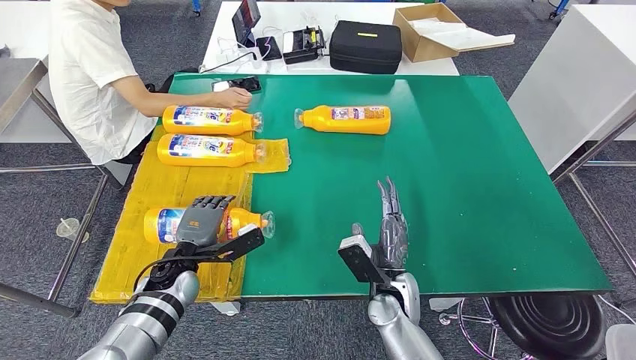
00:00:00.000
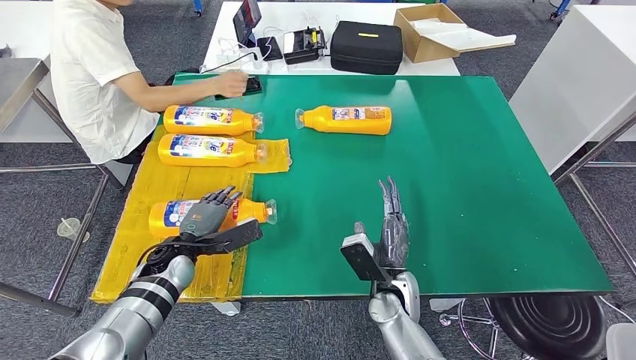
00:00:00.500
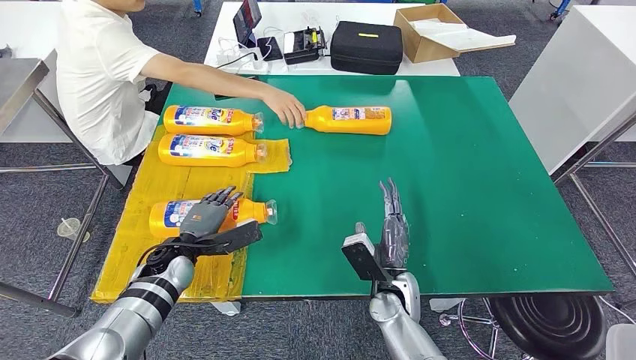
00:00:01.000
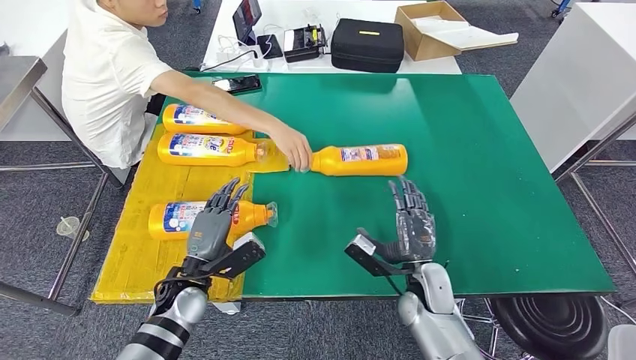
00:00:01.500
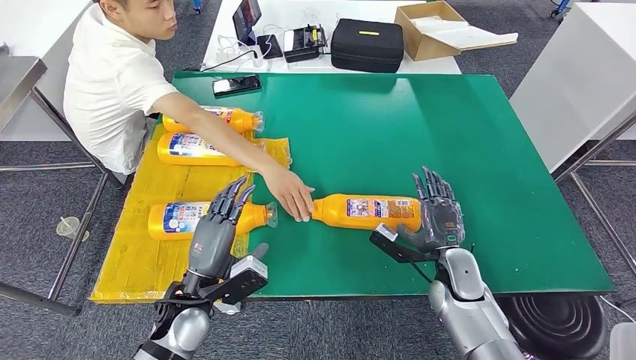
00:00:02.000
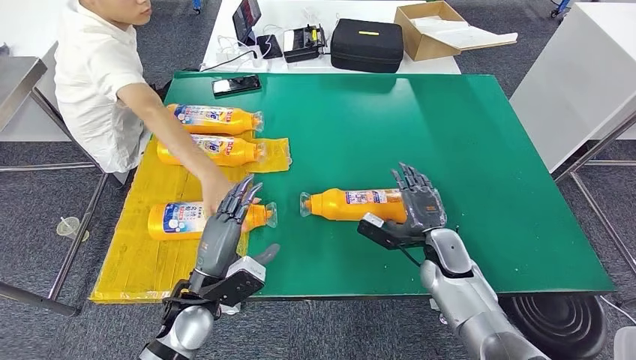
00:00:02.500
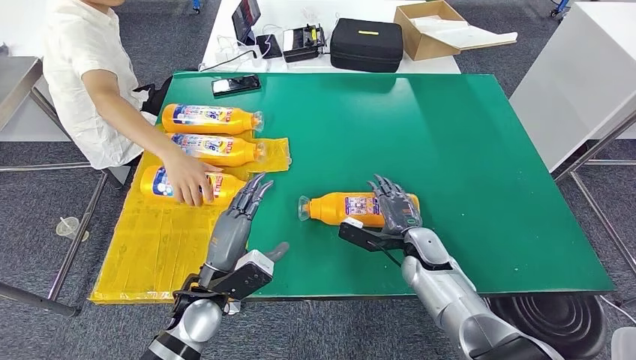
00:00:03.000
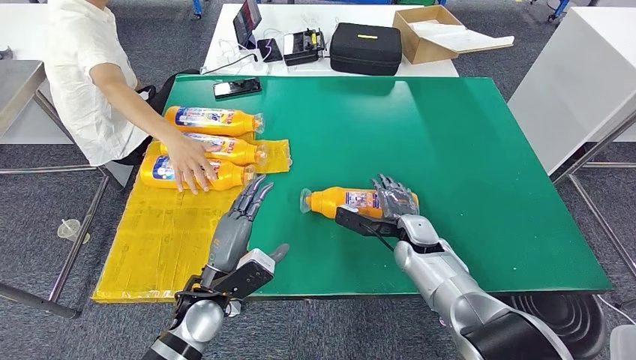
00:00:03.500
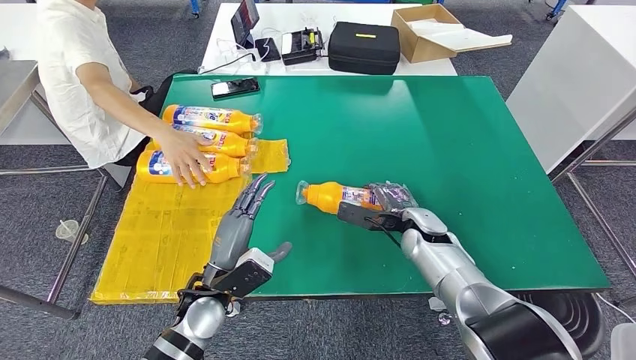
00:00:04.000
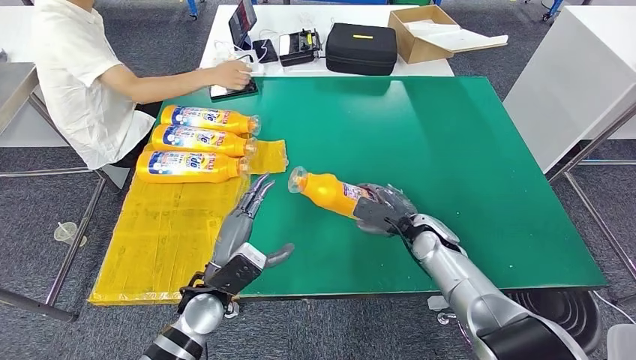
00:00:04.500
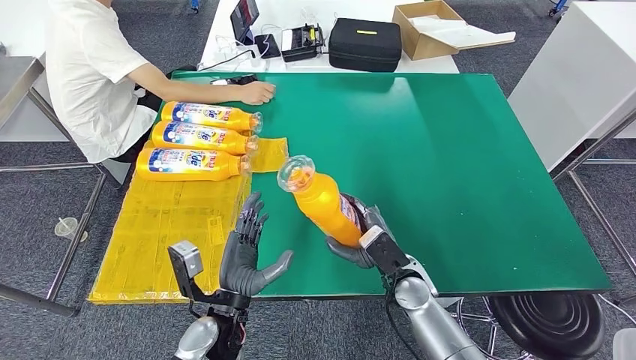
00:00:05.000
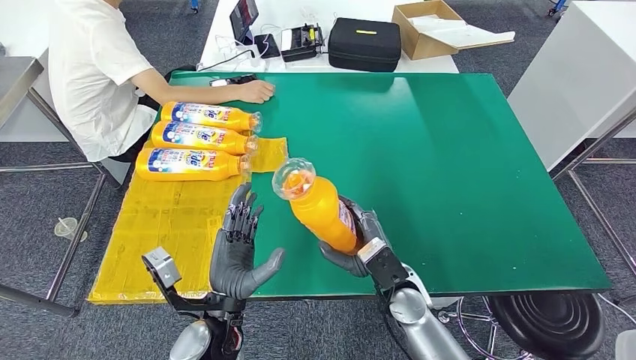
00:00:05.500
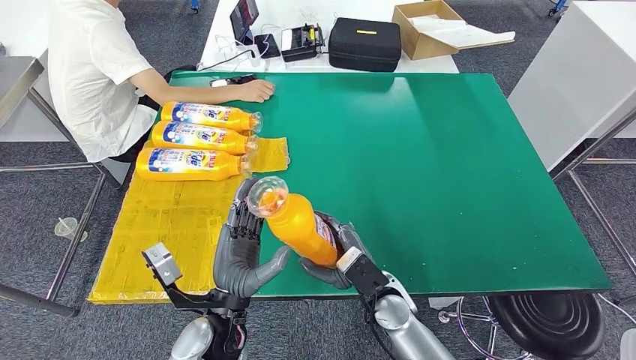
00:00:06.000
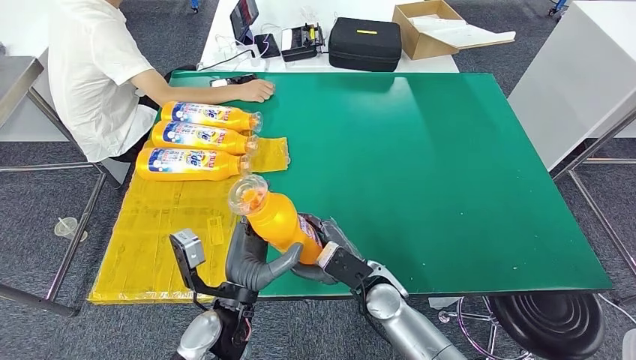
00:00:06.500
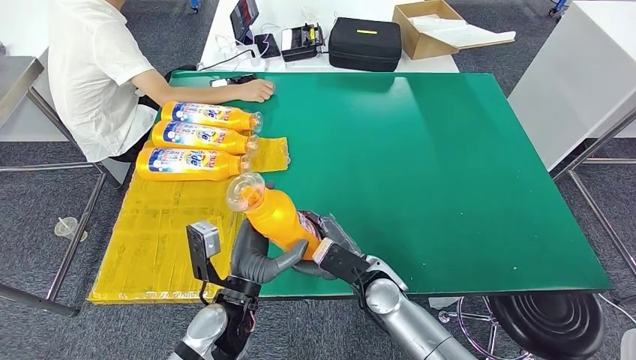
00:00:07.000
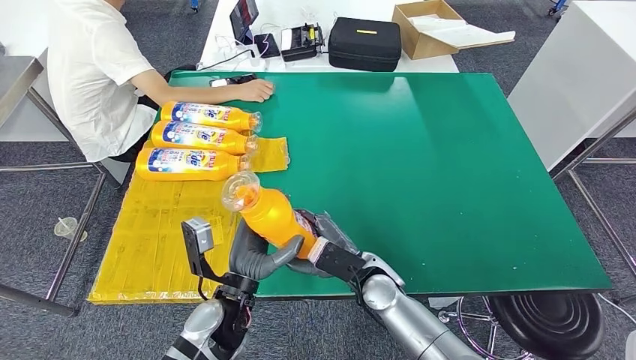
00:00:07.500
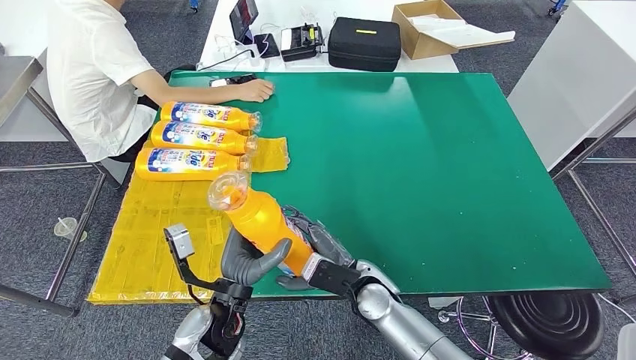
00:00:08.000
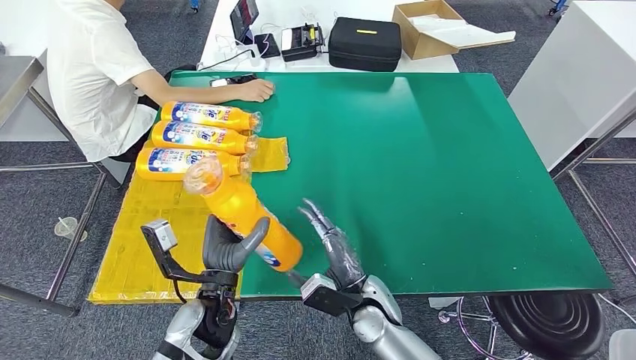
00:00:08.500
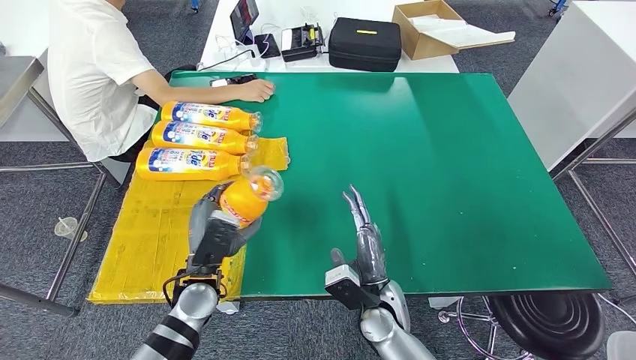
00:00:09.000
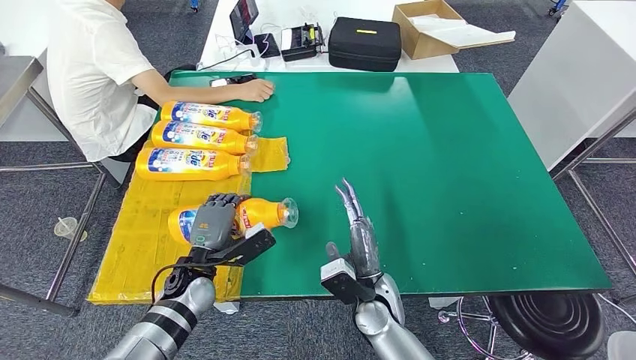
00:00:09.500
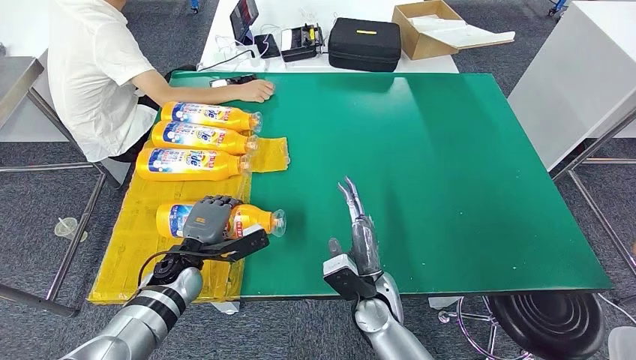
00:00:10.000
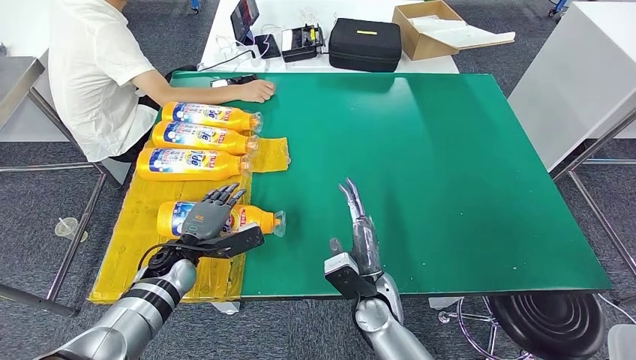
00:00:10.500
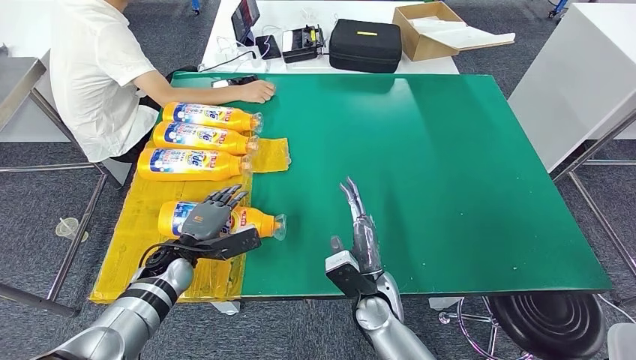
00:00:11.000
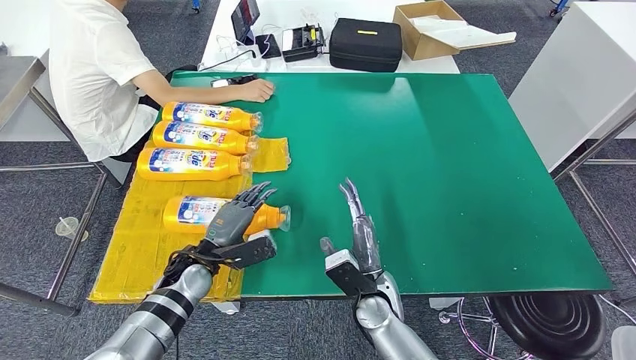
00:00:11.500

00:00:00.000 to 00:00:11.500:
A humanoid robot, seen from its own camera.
Step, 00:00:03.500 to 00:00:05.500: Pick up the bottle from the table.
Step, 00:00:06.000 to 00:00:11.500: Flip the bottle to face forward.
00:00:06.000 to 00:00:07.500: The hands make only small movements.
00:00:07.500 to 00:00:09.500: The left hand heads to the left and forward, covering some 10 cm.
